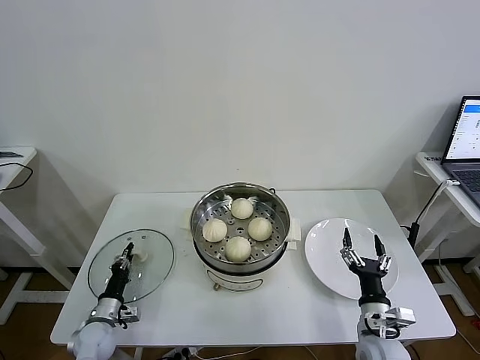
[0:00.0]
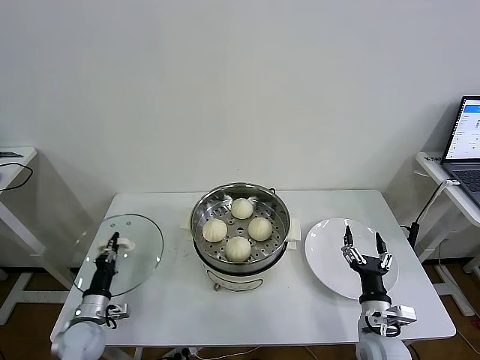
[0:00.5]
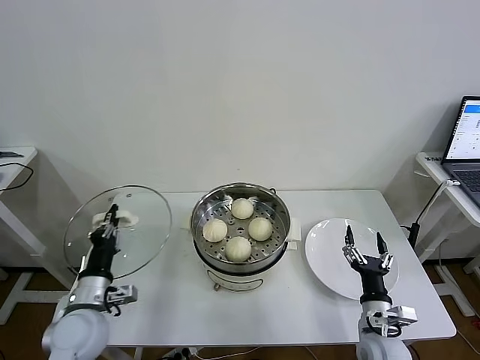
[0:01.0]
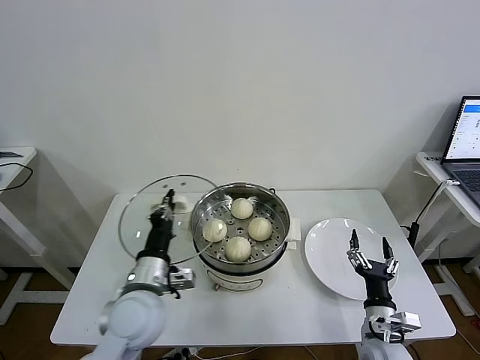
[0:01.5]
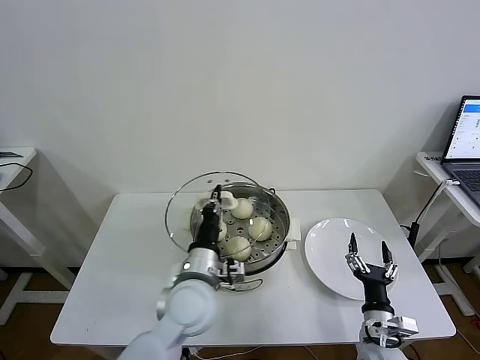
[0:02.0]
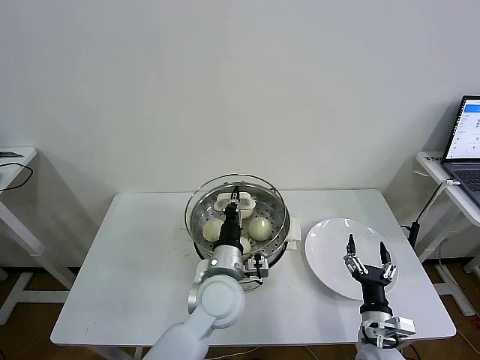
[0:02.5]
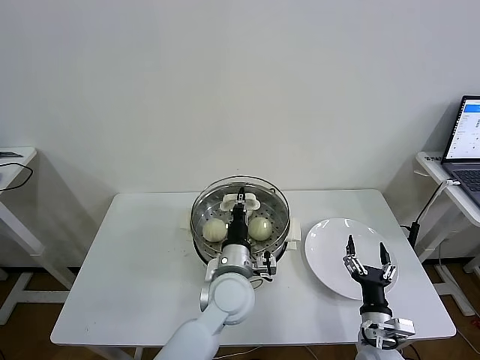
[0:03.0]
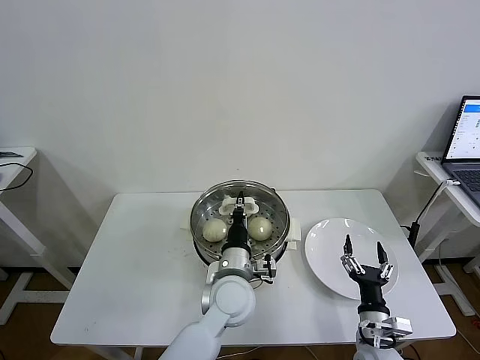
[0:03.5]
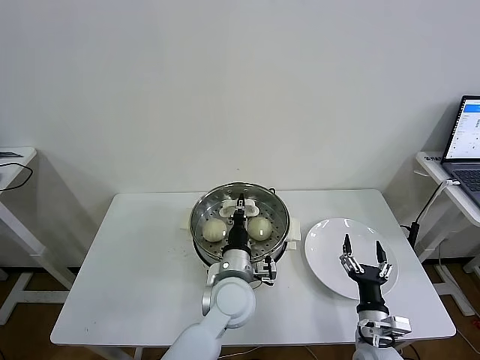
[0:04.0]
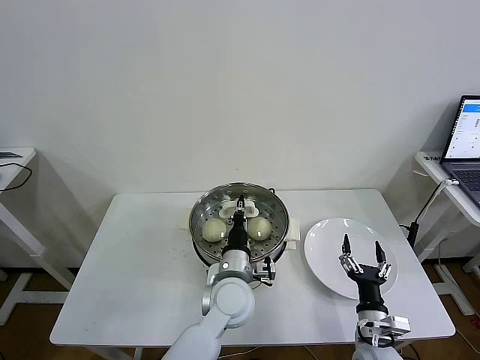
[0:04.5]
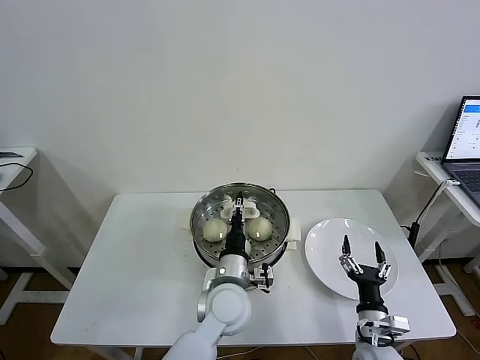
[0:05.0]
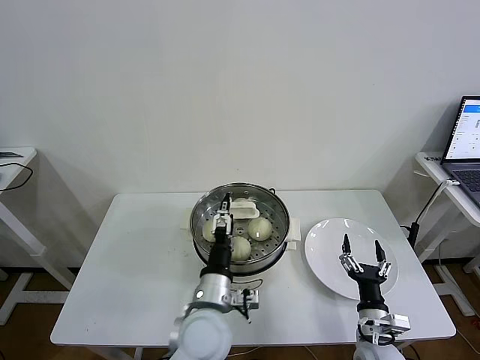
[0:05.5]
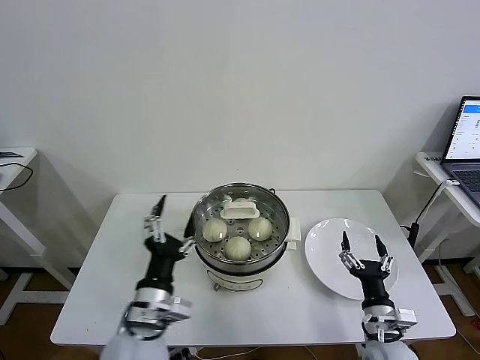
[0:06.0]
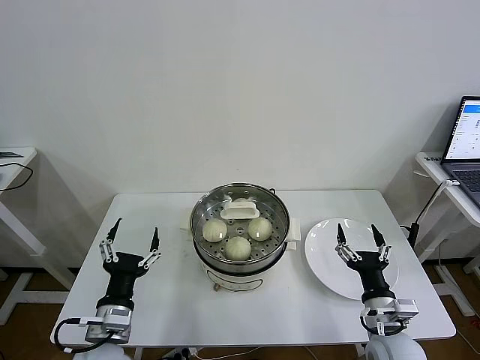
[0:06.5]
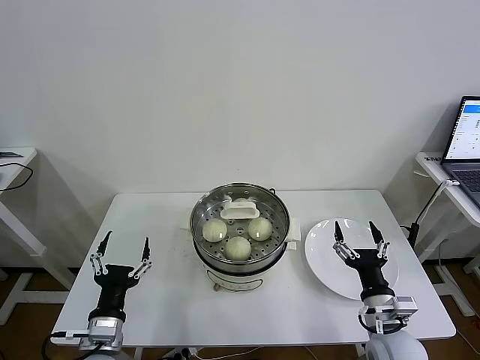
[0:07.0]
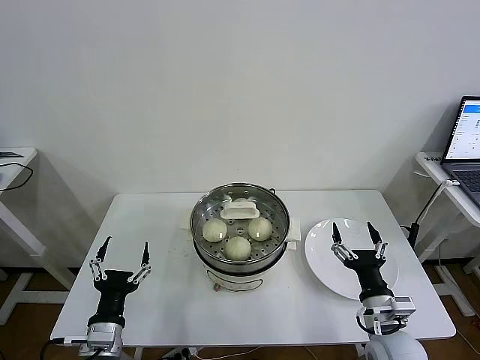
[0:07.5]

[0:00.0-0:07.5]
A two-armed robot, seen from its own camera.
Task of the whole recording: take steamed baozi put them in steamer then cover it.
Step, 0:00.5 to 0:04.5: Place the pot lid on the steamer with left gripper.
0:00.0 to 0:02.0: The left gripper heads to the right and upward, covering about 35 cm.
0:02.0 to 0:04.0: The left gripper goes about 10 cm to the right.
0:04.0 to 0:05.5: The left gripper goes approximately 5 cm backward, and opens its fingers.
0:05.5 to 0:07.5: The right gripper heads upward, covering roughly 10 cm. Meanwhile the left gripper heads to the left and backward, covering about 20 cm.
